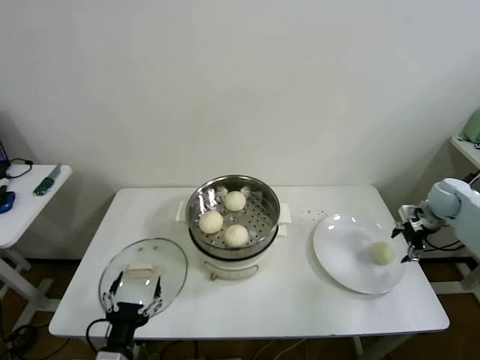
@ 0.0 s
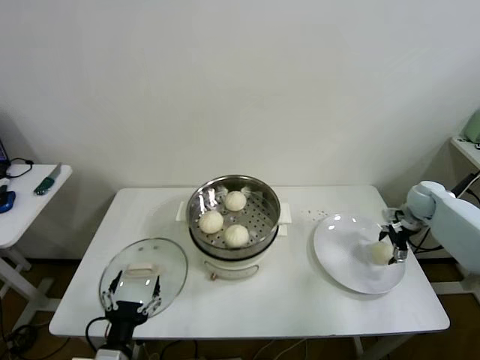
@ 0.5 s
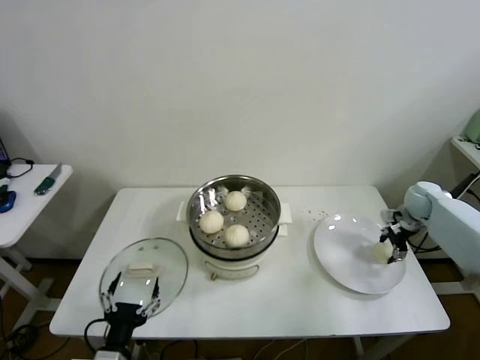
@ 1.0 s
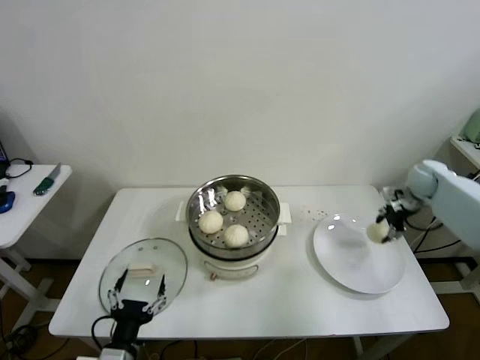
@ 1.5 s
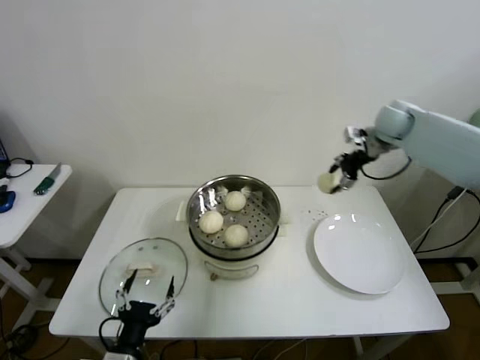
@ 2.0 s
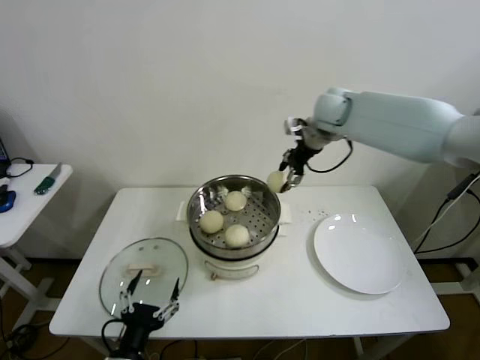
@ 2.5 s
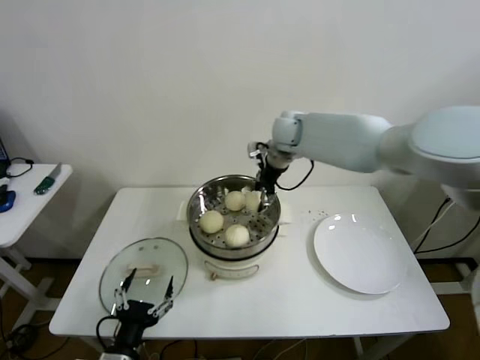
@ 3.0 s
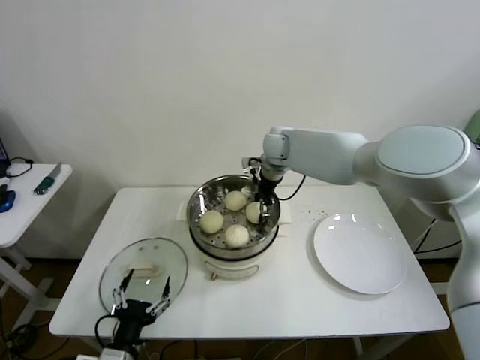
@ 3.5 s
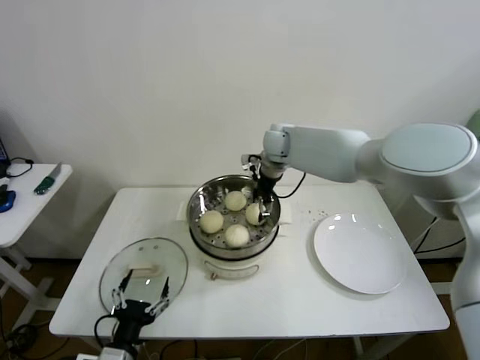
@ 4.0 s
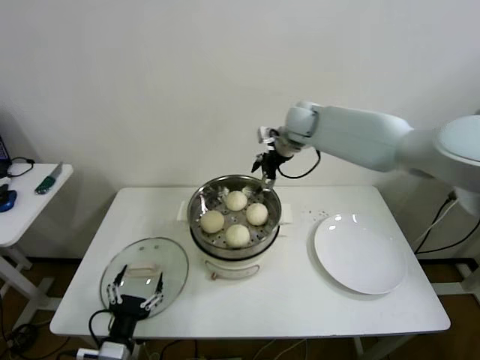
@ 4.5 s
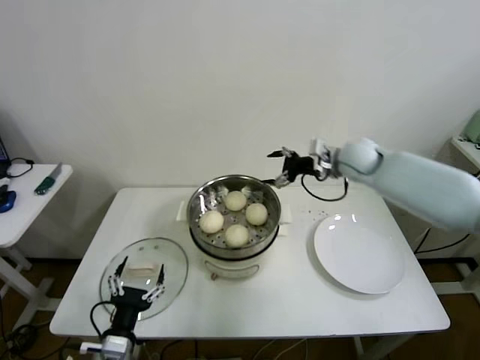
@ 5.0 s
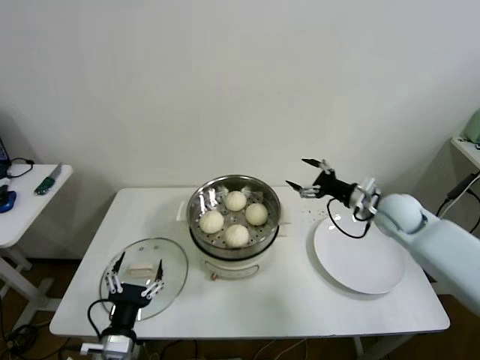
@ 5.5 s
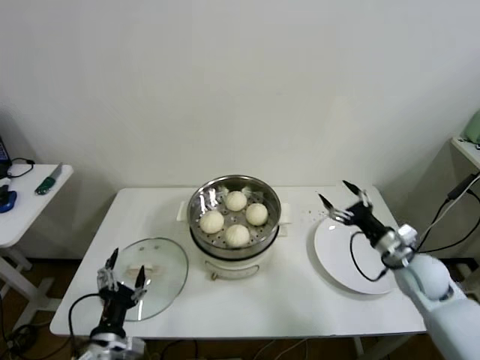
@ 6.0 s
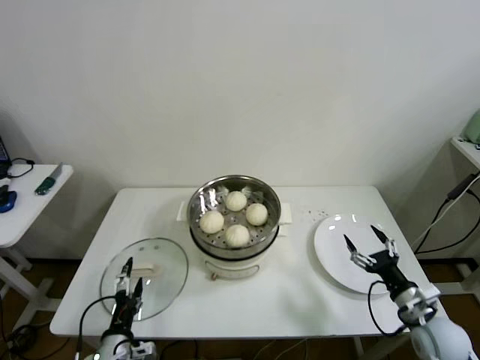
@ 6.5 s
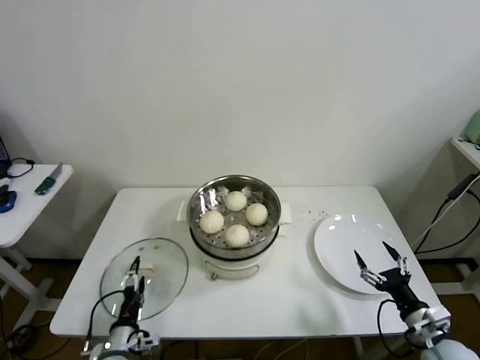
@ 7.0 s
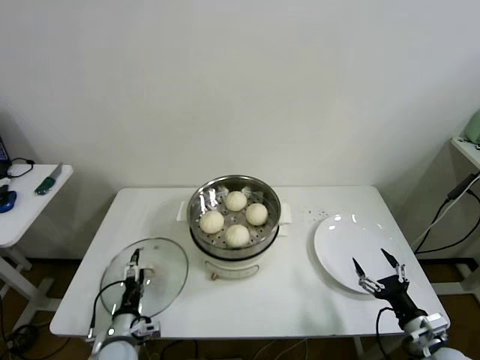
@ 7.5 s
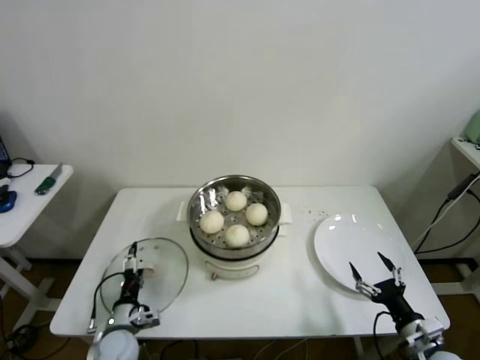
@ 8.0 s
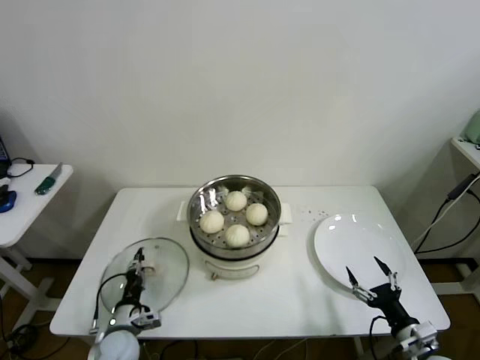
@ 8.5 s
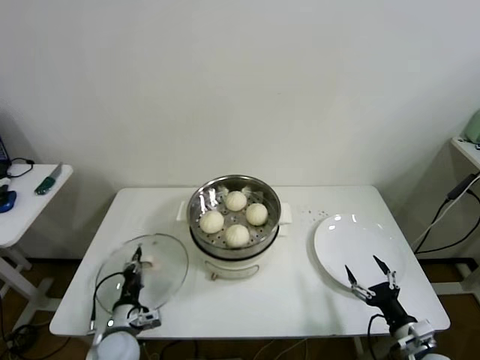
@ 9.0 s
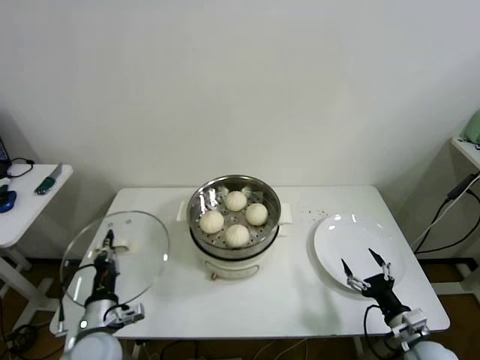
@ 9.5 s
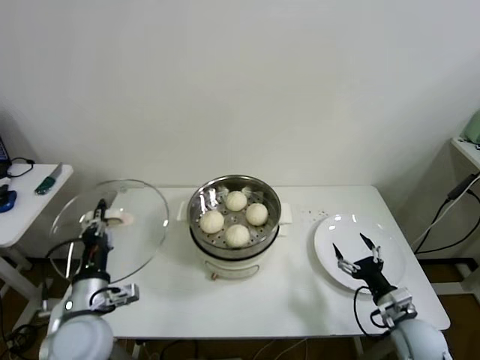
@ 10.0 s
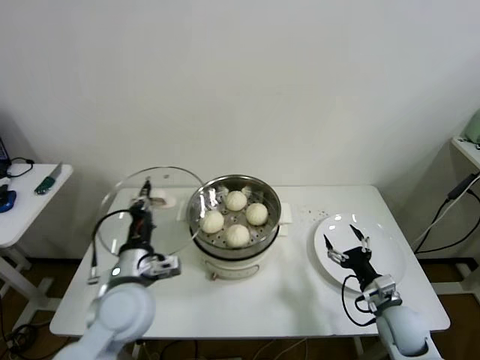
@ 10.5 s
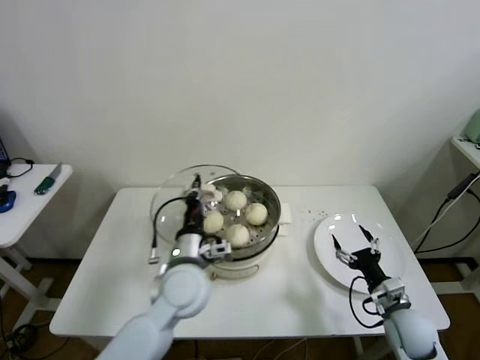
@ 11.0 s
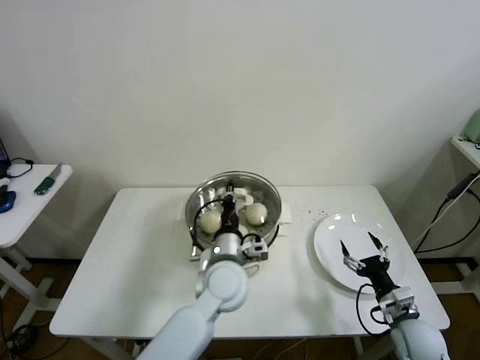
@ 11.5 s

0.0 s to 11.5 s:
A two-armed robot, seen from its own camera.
Step, 1.0 to 3.5 s: Place the baozi on the steamer with right gripper.
Step, 4.0 to 8.5 s: Grasp the pot lid with left gripper.
0.0 to 2.0 s: The right gripper heads upward, to the left and forward, covering roughly 25 cm, and closes.
2.0 to 4.0 s: The right gripper travels to the left by approximately 25 cm, and opens up.
4.0 to 6.0 s: The right gripper moves to the right, backward and downward, approximately 40 cm.
6.0 to 7.5 s: The left gripper heads downward and forward, covering some 15 cm; the right gripper shifts approximately 20 cm backward and downward.
7.5 to 9.5 s: The left gripper goes about 10 cm upward, and closes.
9.5 to 11.5 s: The left gripper goes roughly 30 cm to the right, forward and upward.

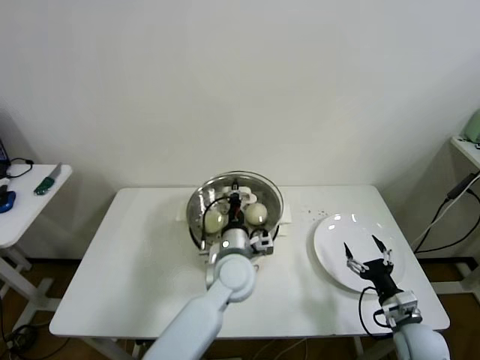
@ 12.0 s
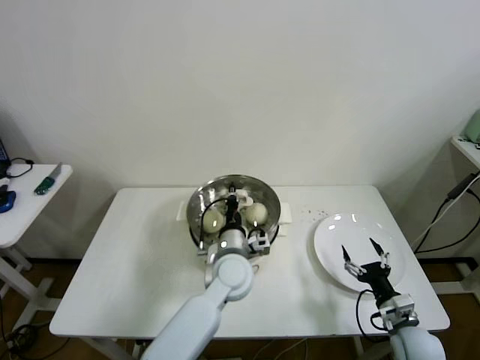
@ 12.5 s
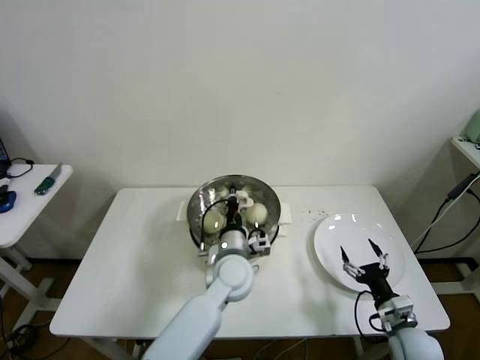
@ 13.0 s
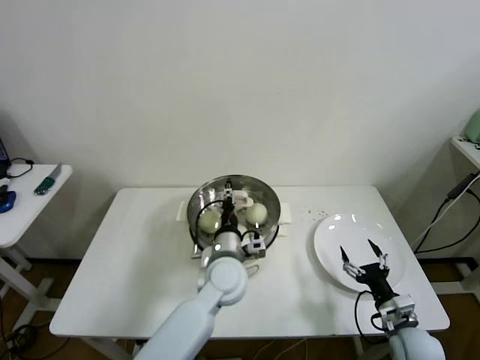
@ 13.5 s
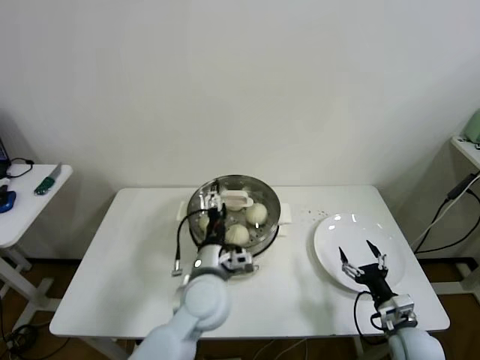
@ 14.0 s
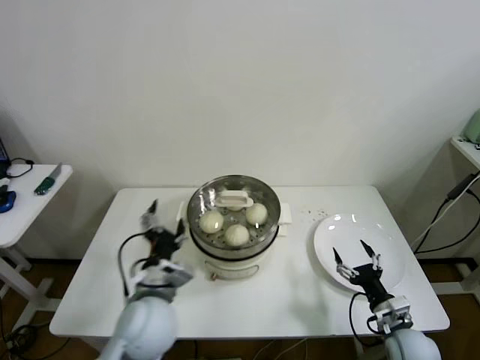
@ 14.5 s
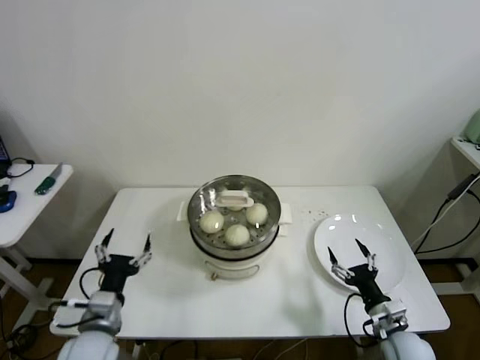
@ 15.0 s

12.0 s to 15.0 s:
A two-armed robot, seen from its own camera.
12.0 to 13.5 s: The left gripper opens its fingers.
13.5 to 15.0 s: The left gripper travels to the left and backward by about 30 cm, and opens up.
